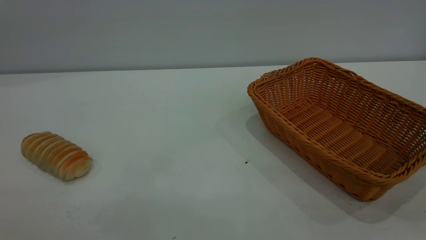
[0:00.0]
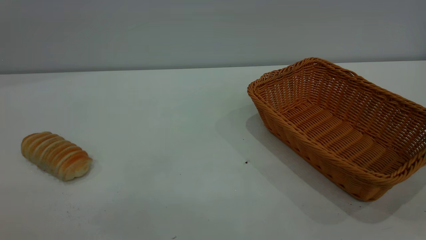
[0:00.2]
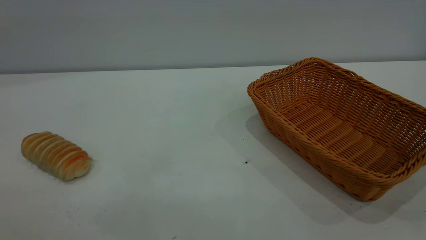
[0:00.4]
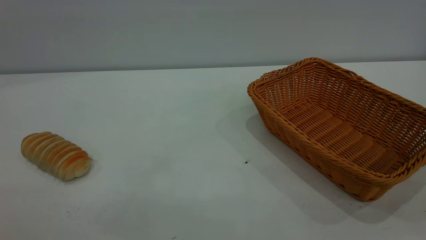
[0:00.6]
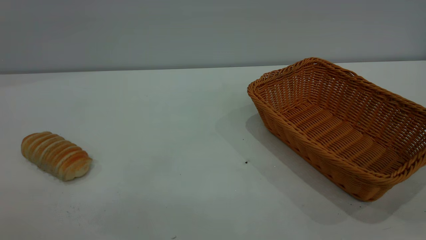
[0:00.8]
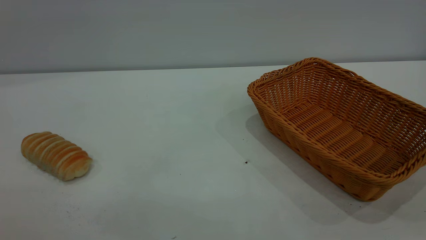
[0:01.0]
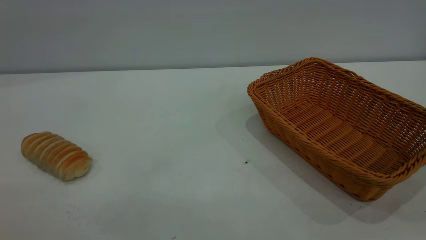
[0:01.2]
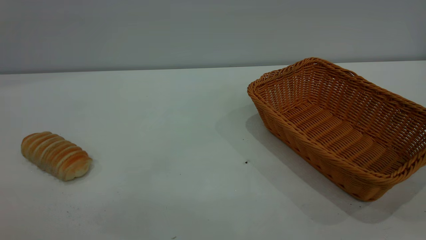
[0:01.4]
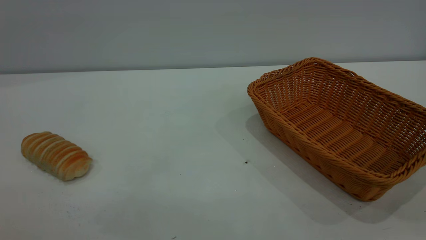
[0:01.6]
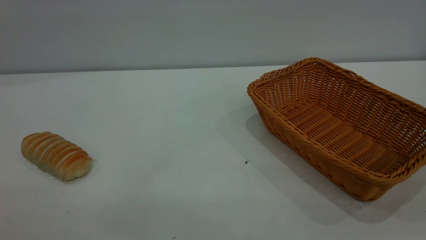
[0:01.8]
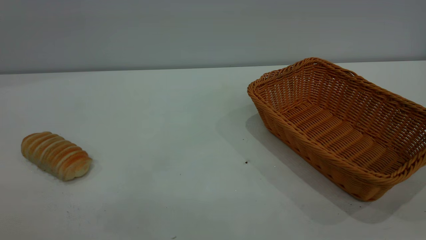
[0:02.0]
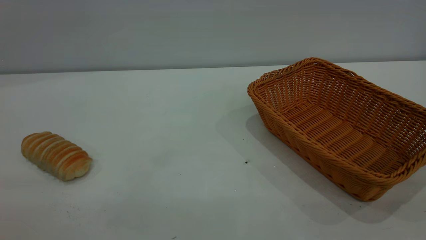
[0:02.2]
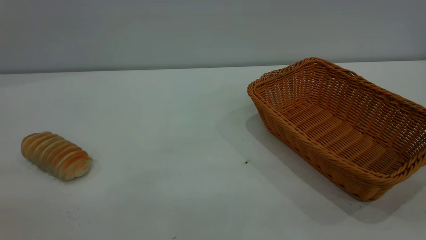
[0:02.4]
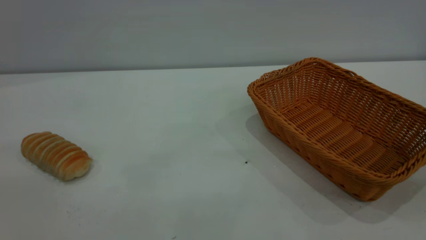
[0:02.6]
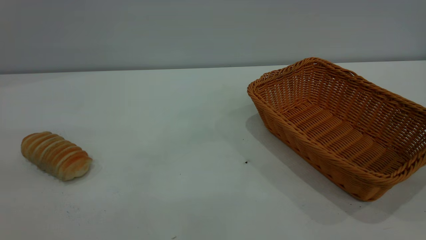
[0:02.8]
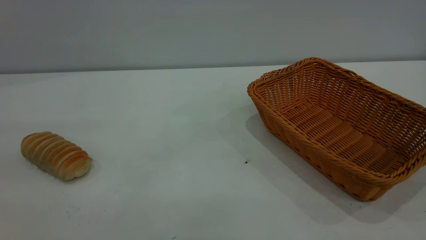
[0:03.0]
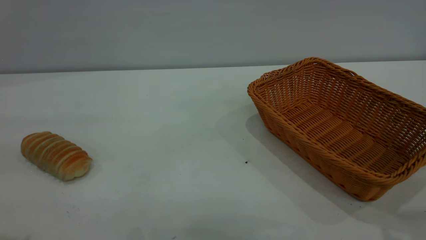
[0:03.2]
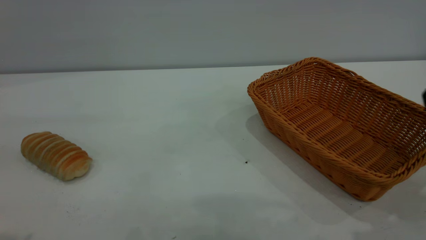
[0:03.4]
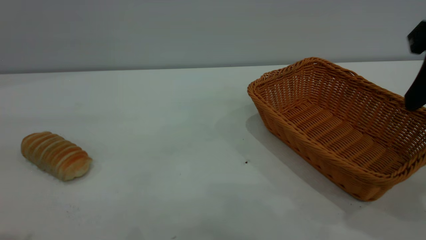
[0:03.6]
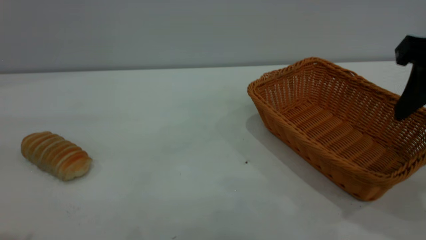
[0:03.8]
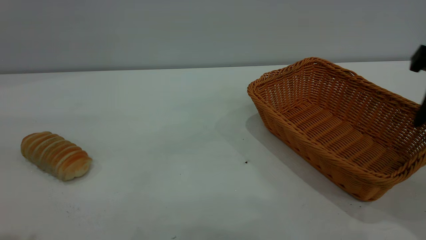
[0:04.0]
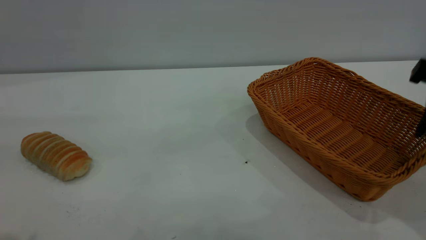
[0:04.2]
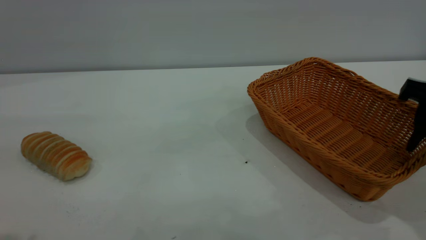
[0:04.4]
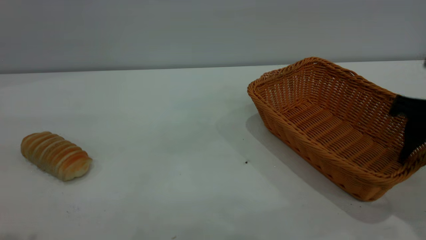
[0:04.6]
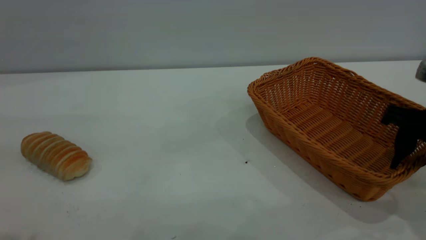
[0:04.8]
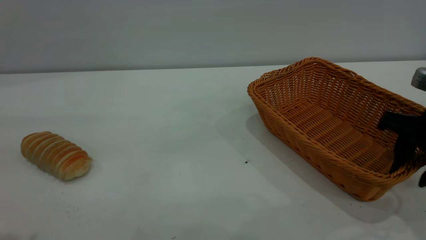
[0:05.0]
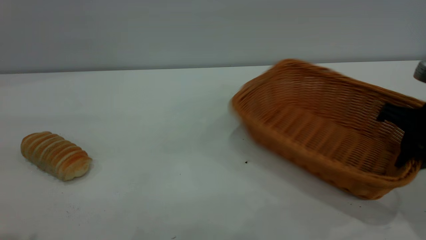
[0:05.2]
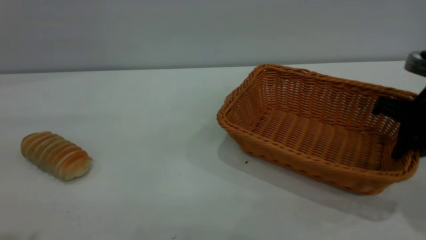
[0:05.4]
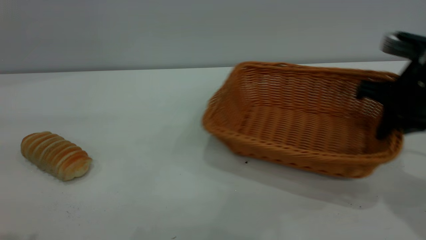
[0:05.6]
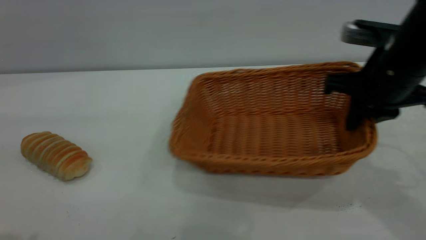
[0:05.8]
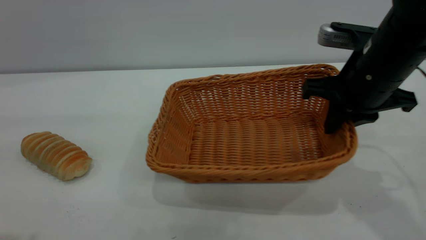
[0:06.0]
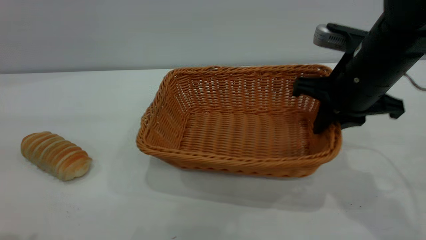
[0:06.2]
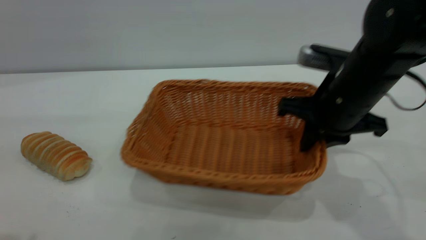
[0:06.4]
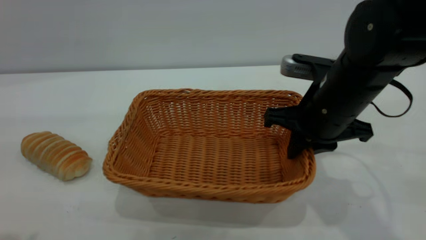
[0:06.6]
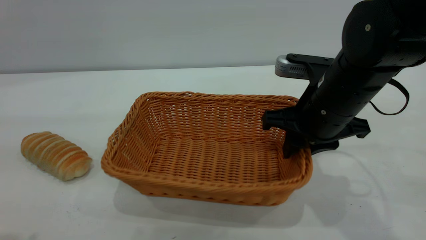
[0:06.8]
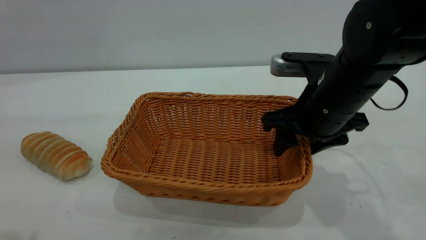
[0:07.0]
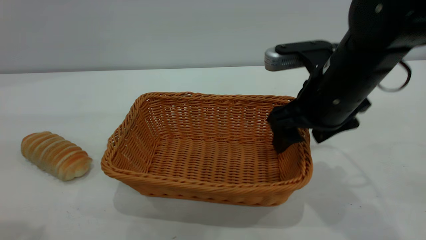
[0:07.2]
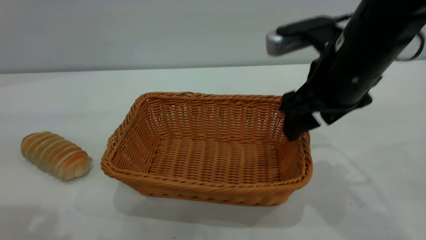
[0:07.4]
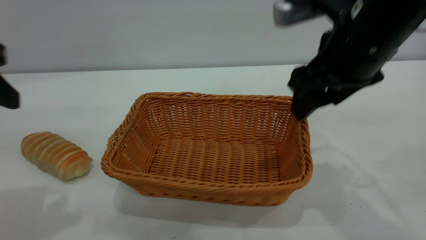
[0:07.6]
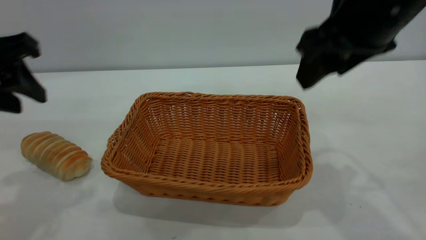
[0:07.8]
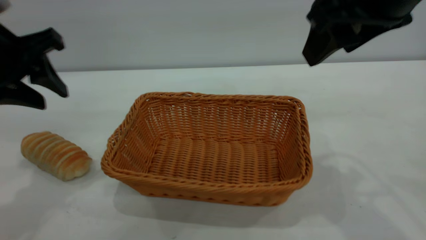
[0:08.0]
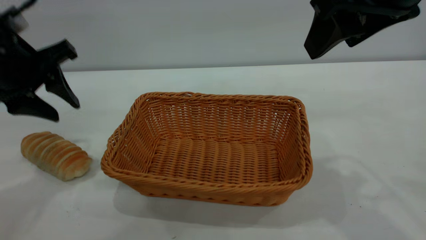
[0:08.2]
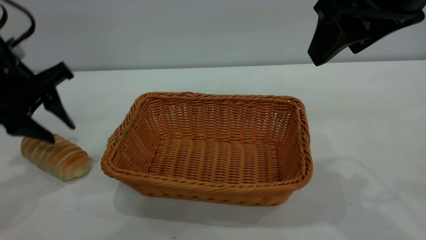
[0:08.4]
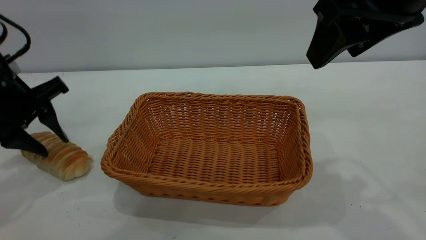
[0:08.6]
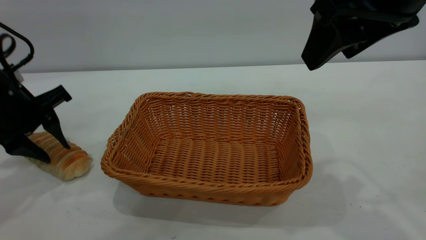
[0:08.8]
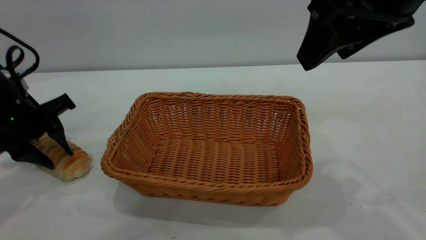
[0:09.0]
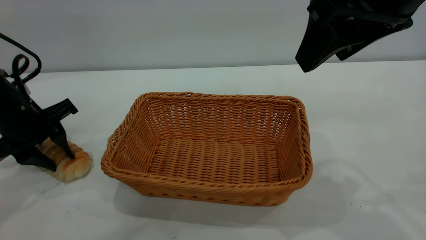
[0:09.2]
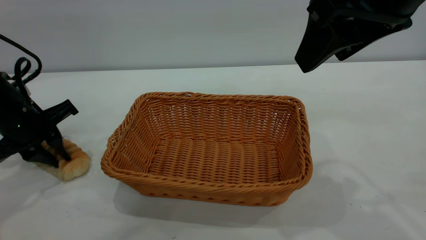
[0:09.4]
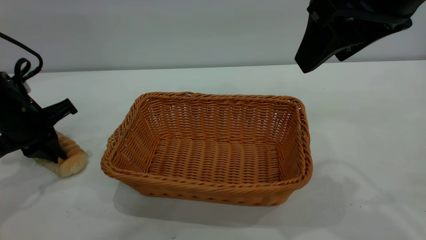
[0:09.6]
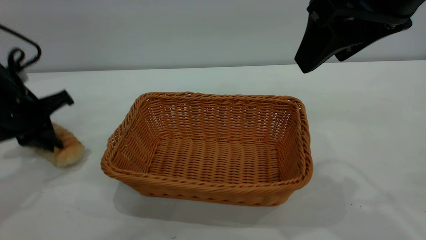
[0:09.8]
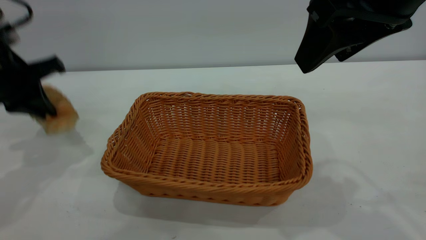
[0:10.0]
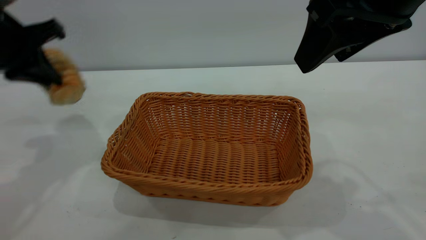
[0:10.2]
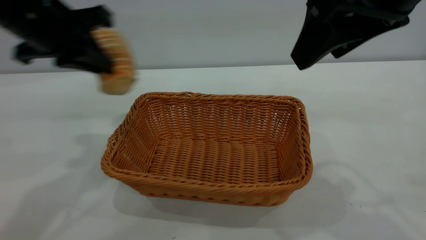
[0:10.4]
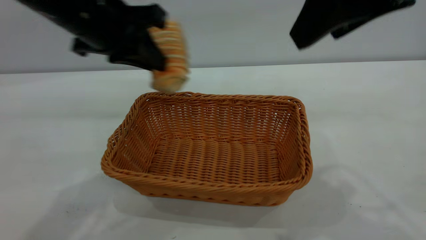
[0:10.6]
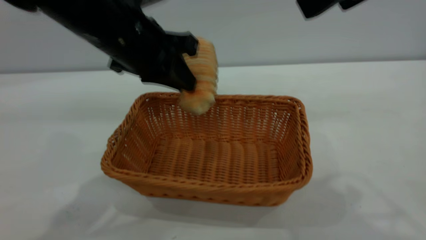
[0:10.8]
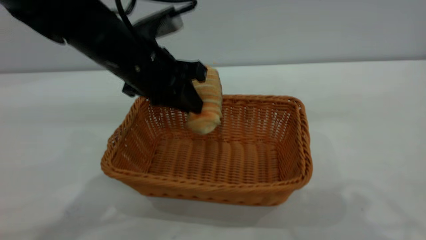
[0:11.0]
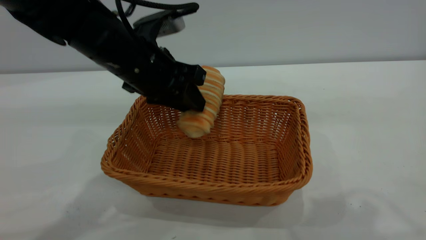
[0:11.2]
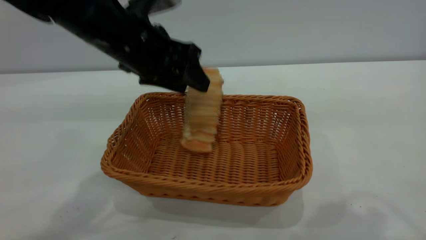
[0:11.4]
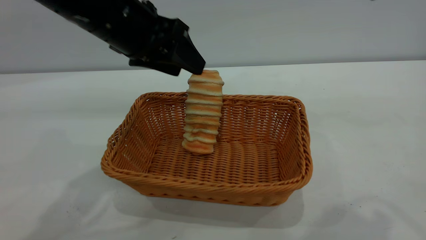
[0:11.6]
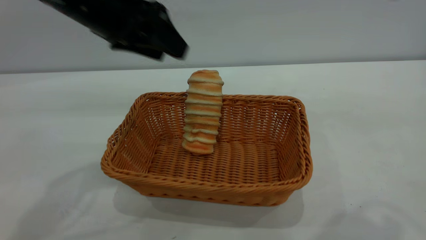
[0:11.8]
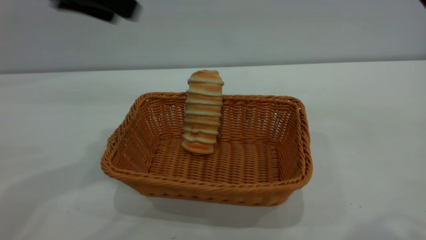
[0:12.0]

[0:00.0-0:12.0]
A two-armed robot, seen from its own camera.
Task of the whole recording: One hand grasps the yellow basket and places it in the middle of the table, while the other hand picks up the long bread and puts it into the yellow basket.
Step, 0:00.0 to 0:07.6: Move the basket to the center of view.
Step, 0:10.2 to 0:11.6: place the bread into the basket.
0:00.0 to 0:01.6: Both grippers stay put.
0:03.0 to 0:04.4: The right gripper shifts some 15 cm forward and downward.
0:04.4 to 0:06.0: The right gripper moves to the left and forward, roughly 10 cm, and closes its fingers.
0:06.0 to 0:07.6: The right gripper travels upward by roughly 5 cm, and opens up, while the left gripper heads forward and downward, covering roughly 10 cm.
0:07.6 to 0:09.0: The right gripper is displaced upward by some 5 cm, while the left gripper is displaced downward and forward by approximately 20 cm.
0:09.0 to 0:10.4: The left gripper moves upward and to the right, roughly 15 cm, and closes its fingers.
0:10.4 to 0:12.0: The left gripper travels upward by some 5 cm, and opens; the right gripper moves backward, upward and to the right, some 15 cm.
